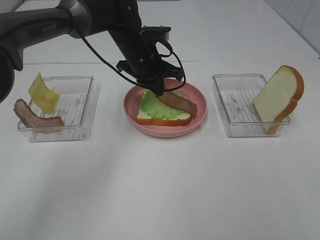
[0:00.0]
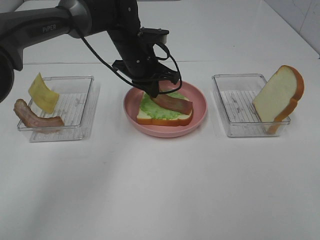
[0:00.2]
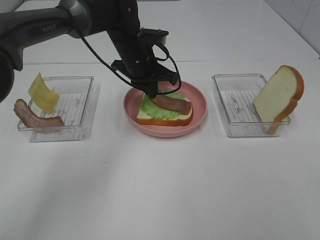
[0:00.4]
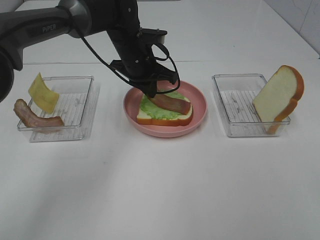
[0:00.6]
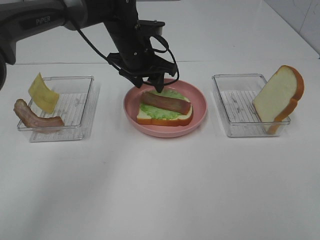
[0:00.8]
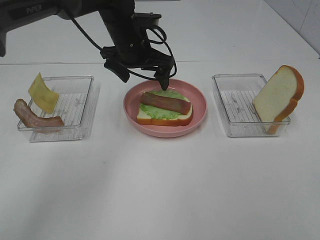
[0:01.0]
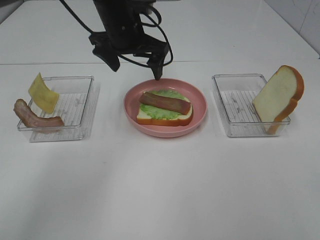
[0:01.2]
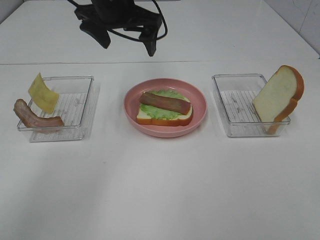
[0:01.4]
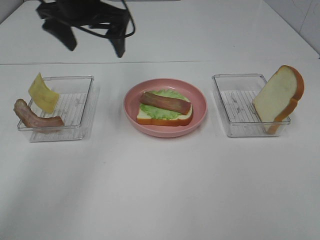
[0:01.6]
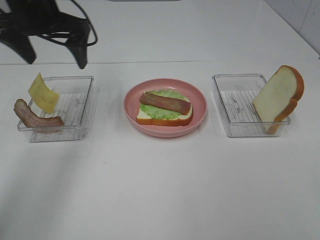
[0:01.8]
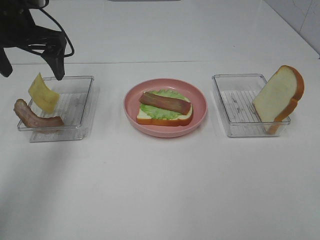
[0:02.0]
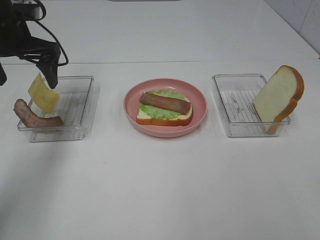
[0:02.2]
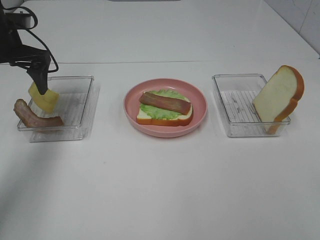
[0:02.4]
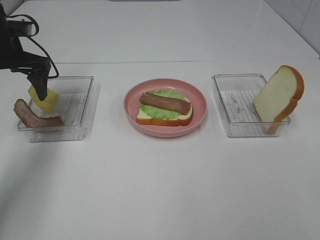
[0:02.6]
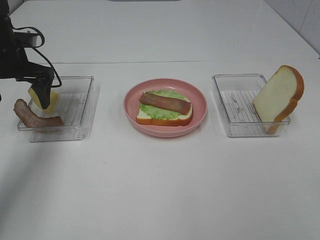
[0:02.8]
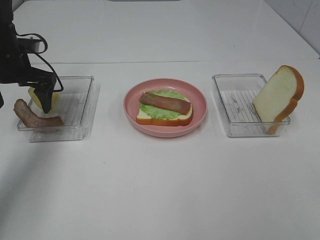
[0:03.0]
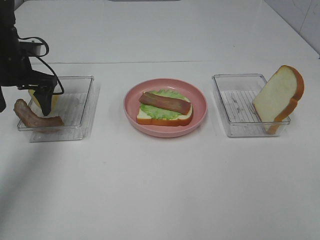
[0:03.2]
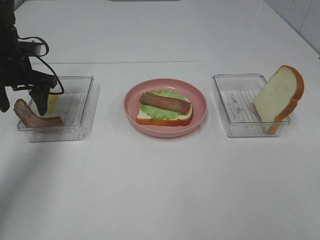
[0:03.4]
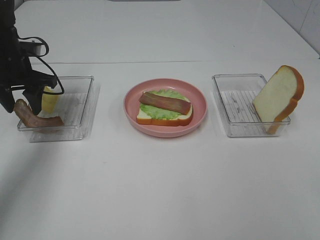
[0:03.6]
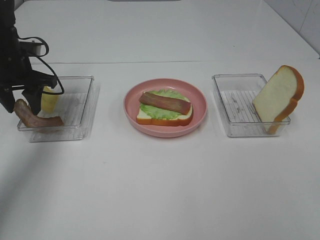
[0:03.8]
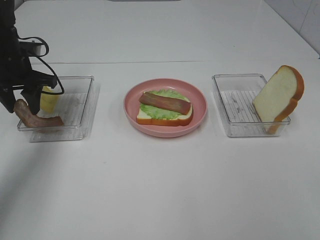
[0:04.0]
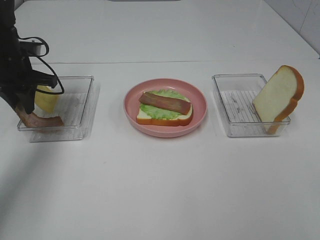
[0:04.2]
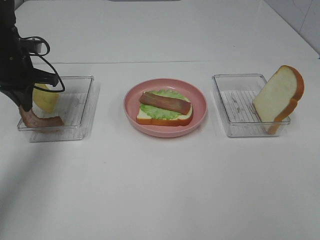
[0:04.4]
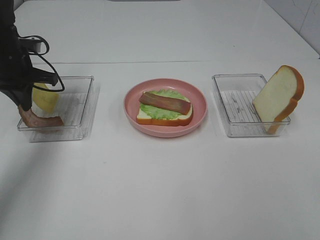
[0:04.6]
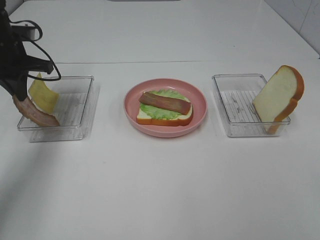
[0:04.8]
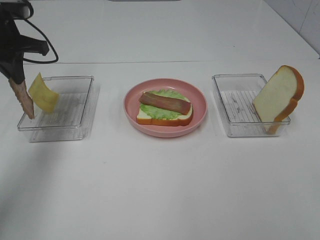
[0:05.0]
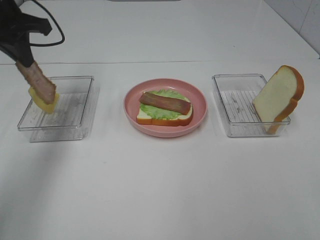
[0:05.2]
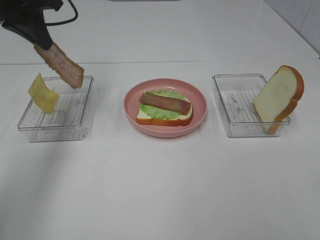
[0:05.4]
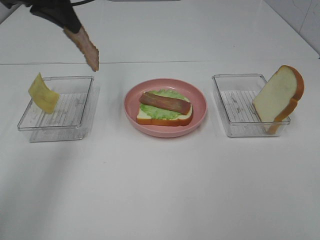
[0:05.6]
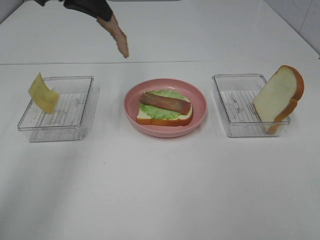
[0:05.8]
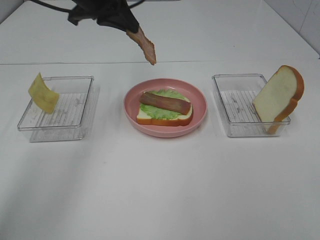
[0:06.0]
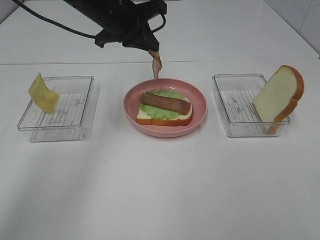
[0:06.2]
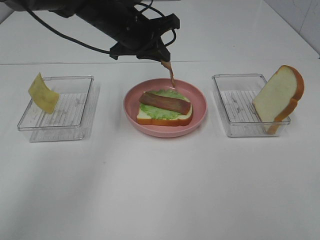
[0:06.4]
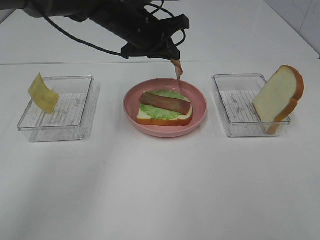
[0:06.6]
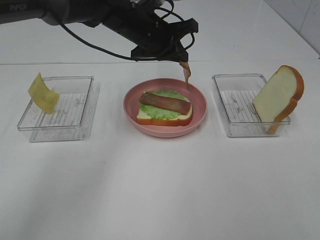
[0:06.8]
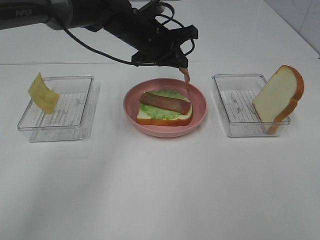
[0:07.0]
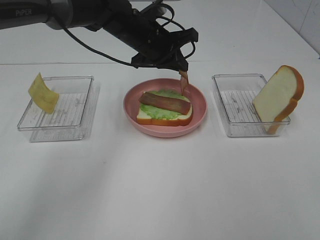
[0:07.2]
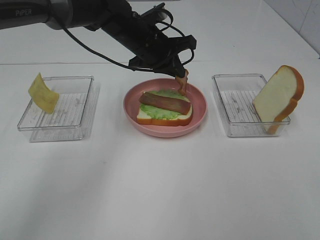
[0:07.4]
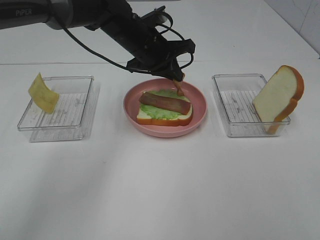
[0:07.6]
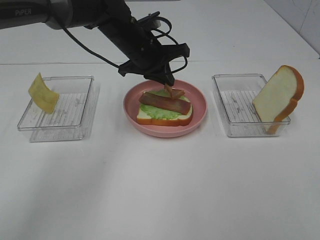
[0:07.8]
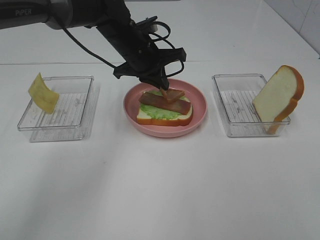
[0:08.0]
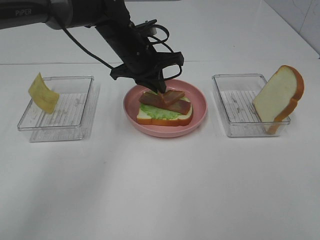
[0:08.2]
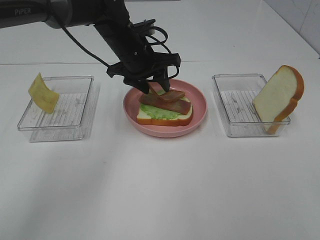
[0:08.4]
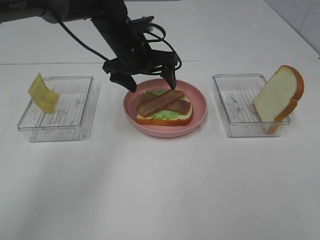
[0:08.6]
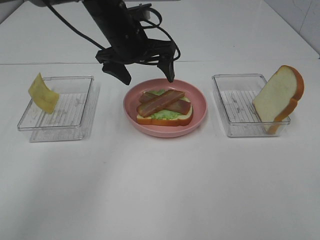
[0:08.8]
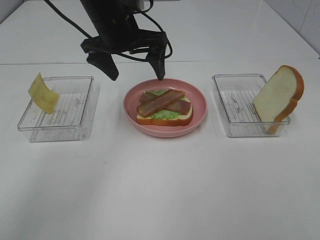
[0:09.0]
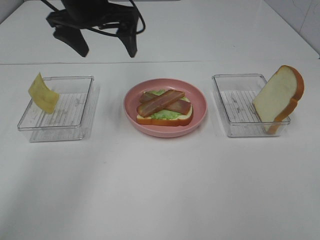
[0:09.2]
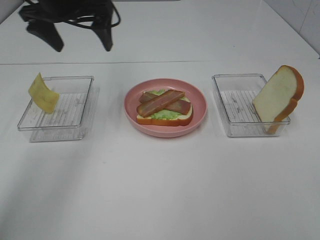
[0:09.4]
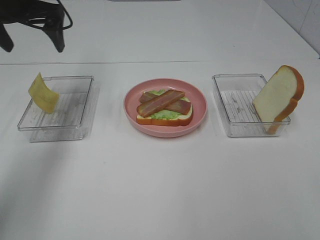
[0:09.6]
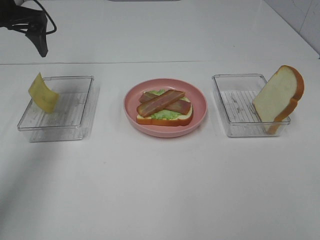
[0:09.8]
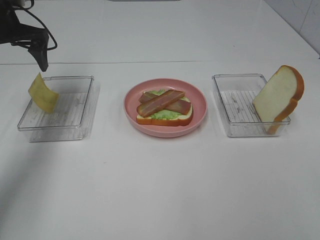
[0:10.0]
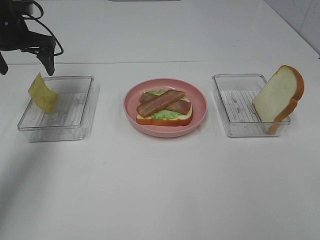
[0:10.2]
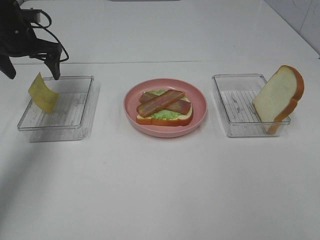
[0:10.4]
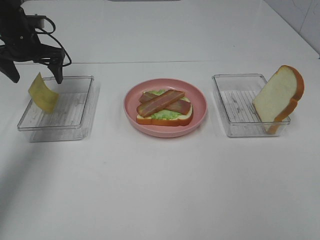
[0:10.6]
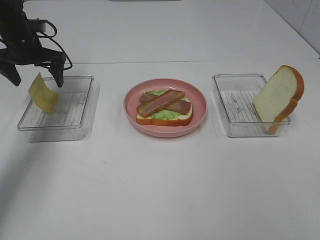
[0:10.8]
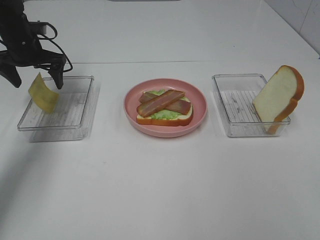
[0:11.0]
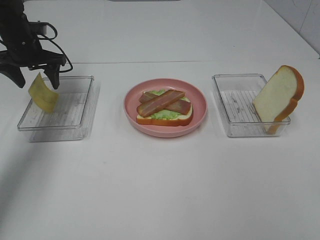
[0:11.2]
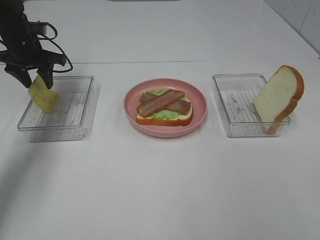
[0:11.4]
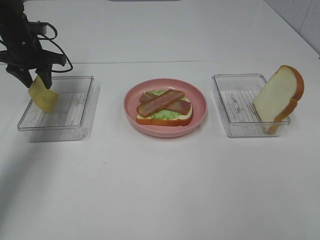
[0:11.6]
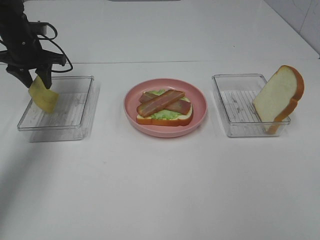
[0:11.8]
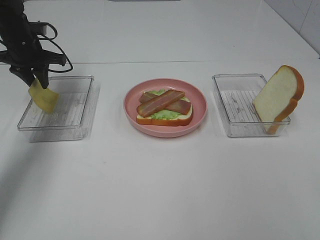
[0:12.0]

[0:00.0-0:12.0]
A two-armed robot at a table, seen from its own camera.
Task of the whole recording: Make sandwiches.
Step, 0:01.2 to 0:04.4: Left hand:grab the bacon.
Step, 0:04.6 to 0:08.6: Left hand:place bacon on bacon.
0:00.0 to 0:01.6: The left gripper shifts roughly 15 cm upward and to the left, and opens.
0:01.6 to 0:03.0: The left gripper travels to the left and downward by some 20 cm.
0:03.0 to 0:04.4: The left gripper closes its fingers.
0:04.4 to 0:06.0: The left gripper goes some 20 cm to the right and upward.
0:06.0 to 0:07.6: The left gripper goes roughly 15 cm downward and to the right.
0:07.6 to 0:09.0: The left gripper moves upward, approximately 5 cm, and opens.
0:09.0 to 0:10.4: The left gripper heads to the left, covering approximately 20 cm.
0:10.4 to 0:12.0: The left gripper closes its fingers.

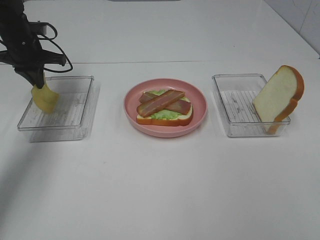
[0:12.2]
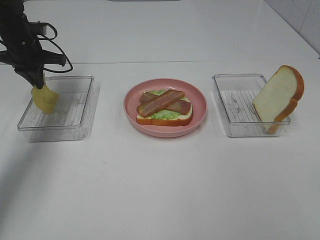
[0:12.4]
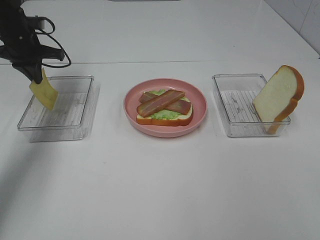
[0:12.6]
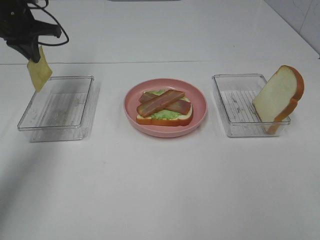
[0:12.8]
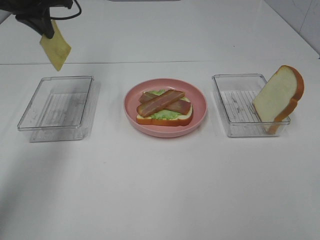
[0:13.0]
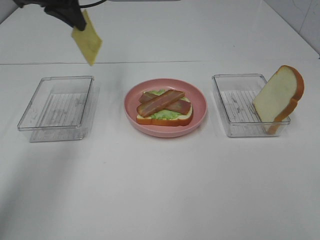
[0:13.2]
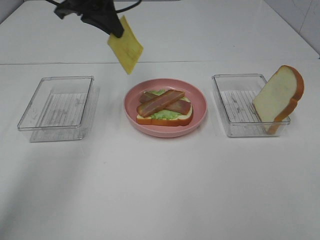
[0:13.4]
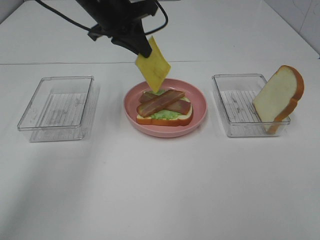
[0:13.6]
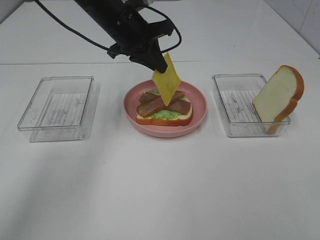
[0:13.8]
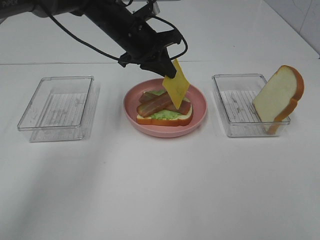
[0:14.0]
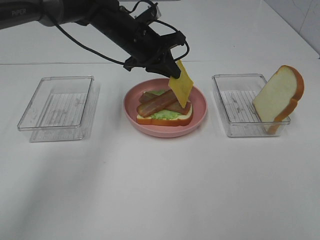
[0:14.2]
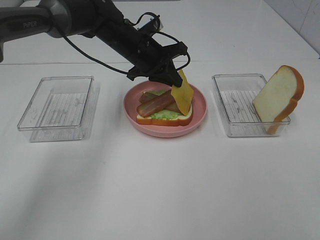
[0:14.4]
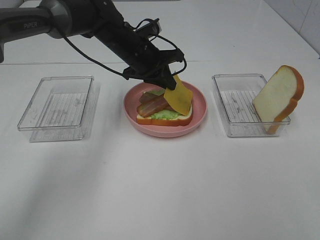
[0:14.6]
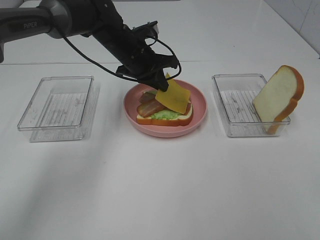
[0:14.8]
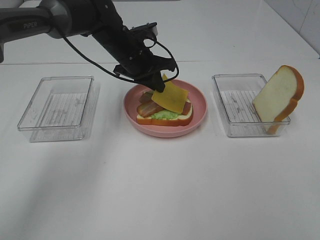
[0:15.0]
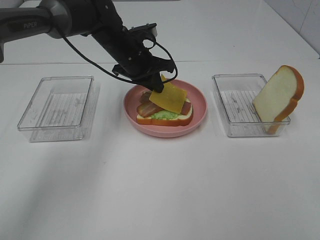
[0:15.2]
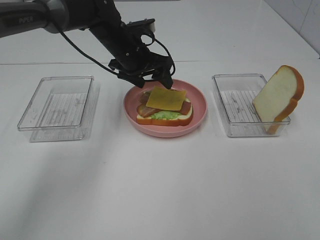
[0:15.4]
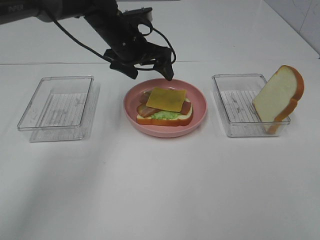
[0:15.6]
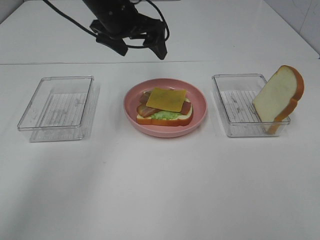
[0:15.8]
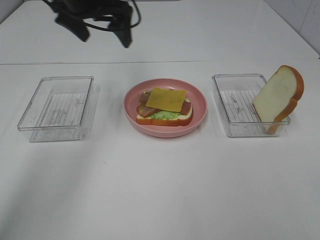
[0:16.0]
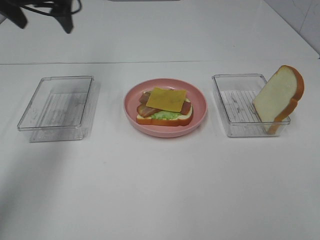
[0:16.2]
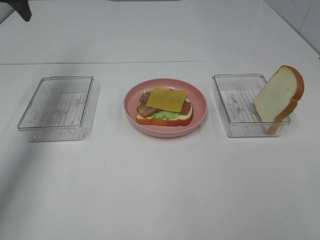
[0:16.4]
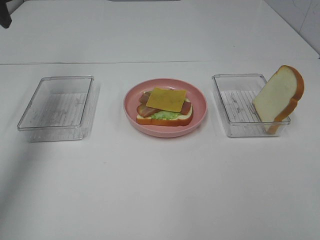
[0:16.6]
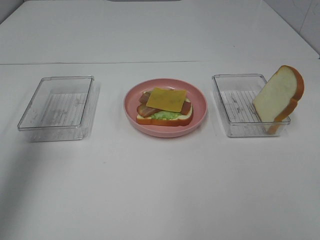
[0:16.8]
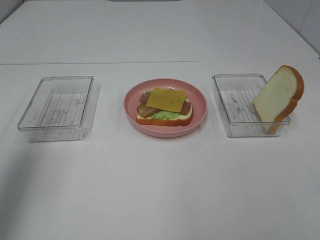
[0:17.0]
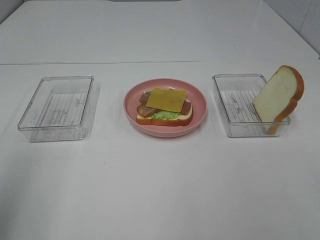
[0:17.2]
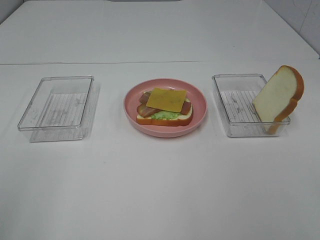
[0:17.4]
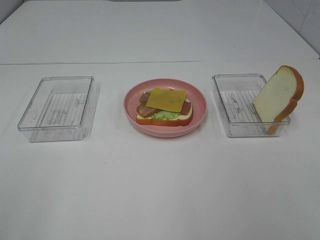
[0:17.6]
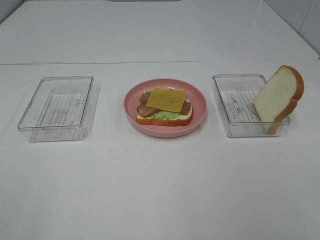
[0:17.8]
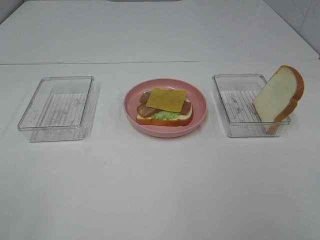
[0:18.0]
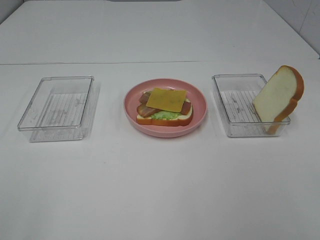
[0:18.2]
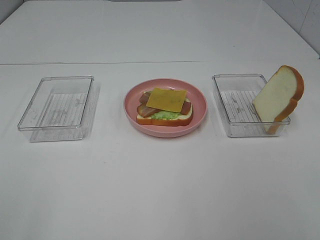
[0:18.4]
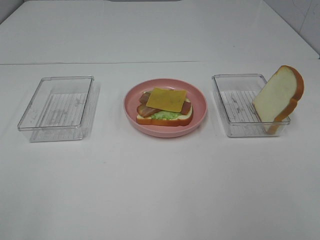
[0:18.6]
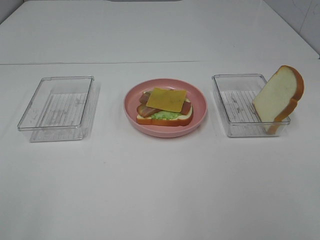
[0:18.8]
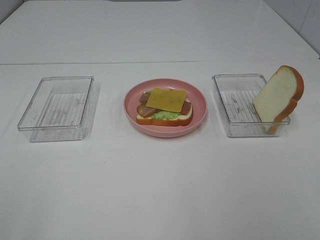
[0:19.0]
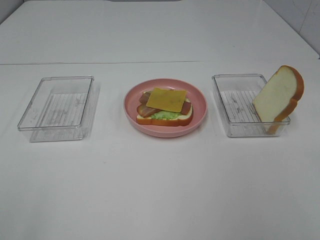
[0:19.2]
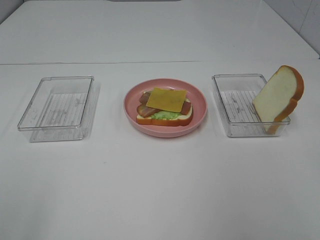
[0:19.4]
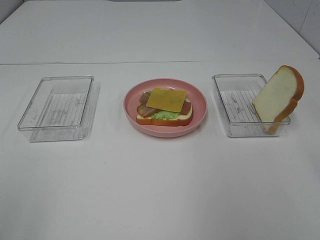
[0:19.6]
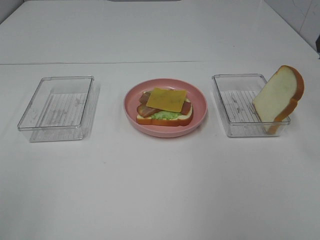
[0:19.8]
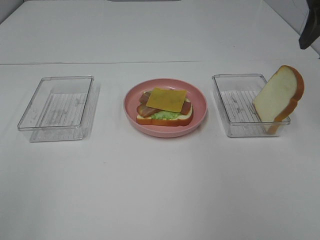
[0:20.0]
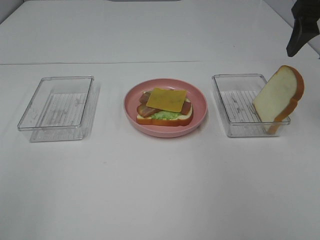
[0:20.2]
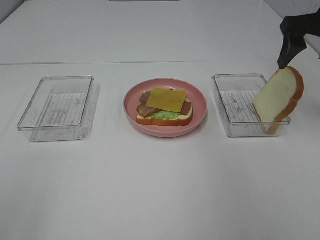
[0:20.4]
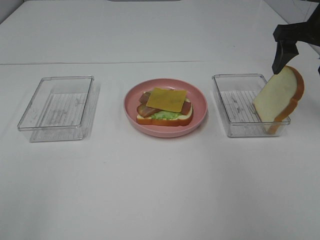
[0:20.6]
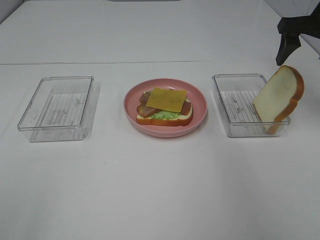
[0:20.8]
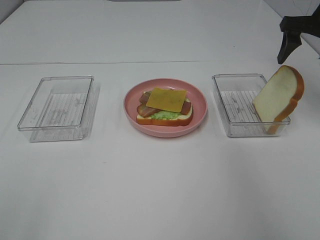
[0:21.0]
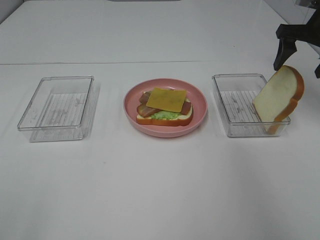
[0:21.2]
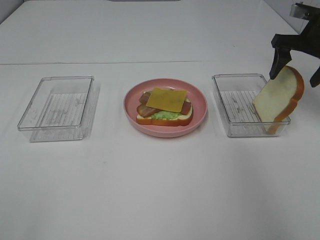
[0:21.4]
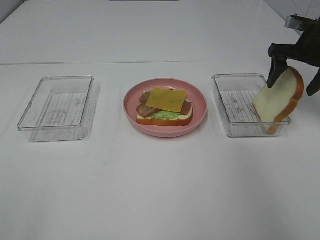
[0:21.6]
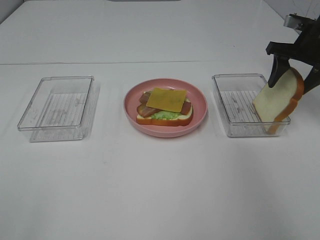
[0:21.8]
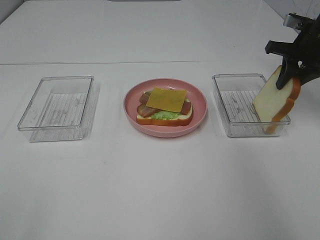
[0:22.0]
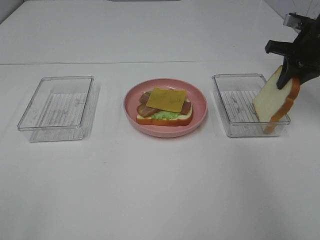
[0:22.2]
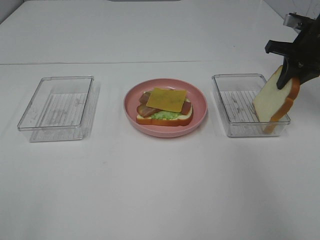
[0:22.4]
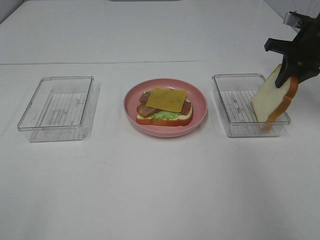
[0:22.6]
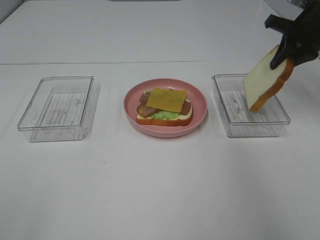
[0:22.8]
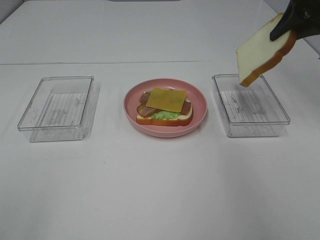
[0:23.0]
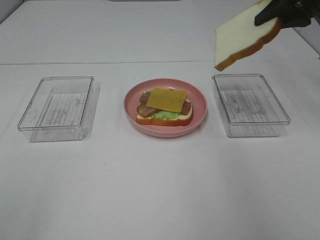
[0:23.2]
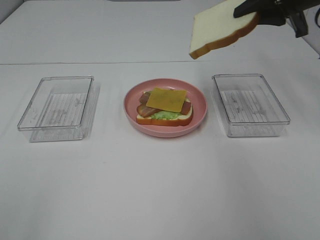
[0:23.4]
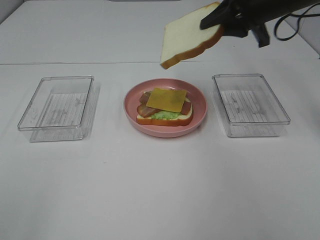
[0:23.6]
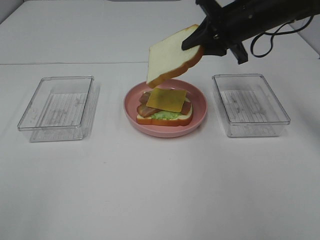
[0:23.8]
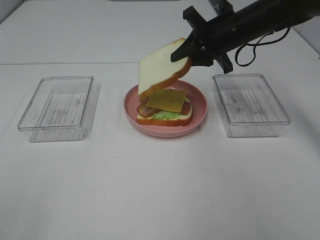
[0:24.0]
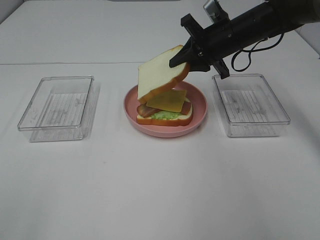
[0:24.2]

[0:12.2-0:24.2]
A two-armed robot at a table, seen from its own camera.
Task of the whole recording: Make sandwiches.
Step, 0:12.6 to 0:15.6: Left hand:place the cheese slice on top of the bacon.
Step, 0:15.8 to 0:22.6: Right hand:grab the bread slice.
0:12.2 to 0:13.8: The left gripper travels to the right by some 20 cm.
0:13.8 to 0:15.2: The left gripper goes some 5 cm downward.
0:15.2 to 0:16.6: The left gripper heads to the left and upward, covering some 30 cm, and opens up.
0:16.6 to 0:18.2: The left gripper is displaced backward by some 40 cm.
0:19.8 to 0:21.2: The right gripper goes approximately 20 cm forward and downward.
0:21.2 to 0:22.6: The right gripper closes.
0:22.6 to 0:24.2: The right gripper heads to the left, covering approximately 15 cm.
